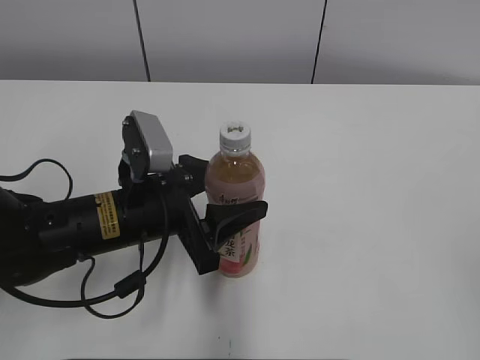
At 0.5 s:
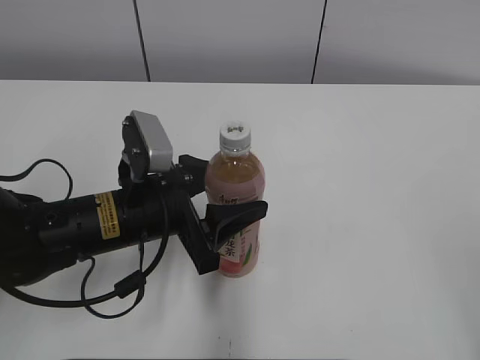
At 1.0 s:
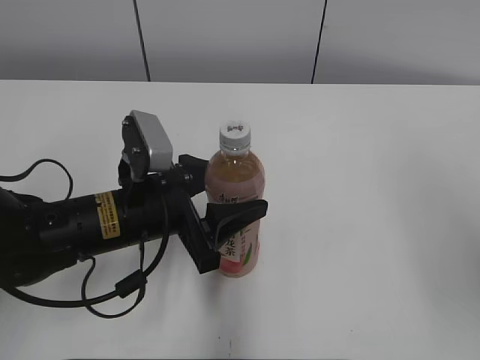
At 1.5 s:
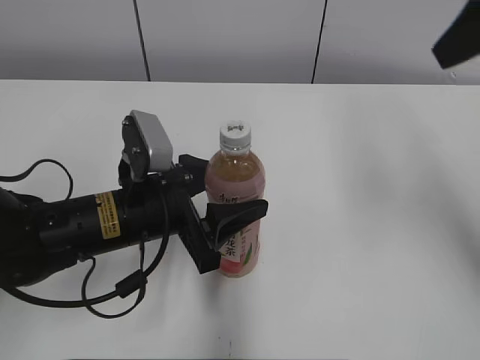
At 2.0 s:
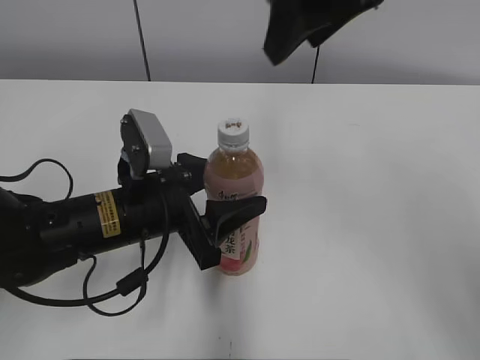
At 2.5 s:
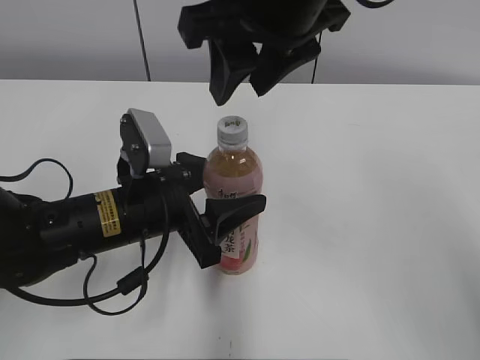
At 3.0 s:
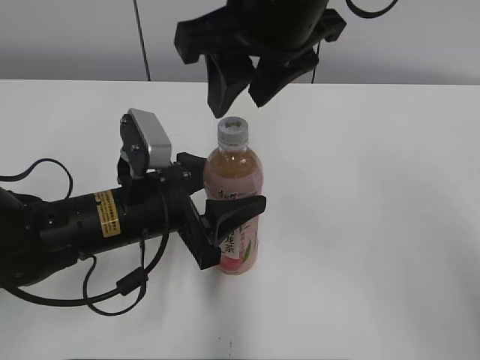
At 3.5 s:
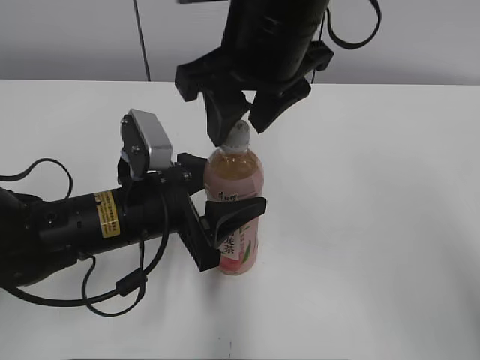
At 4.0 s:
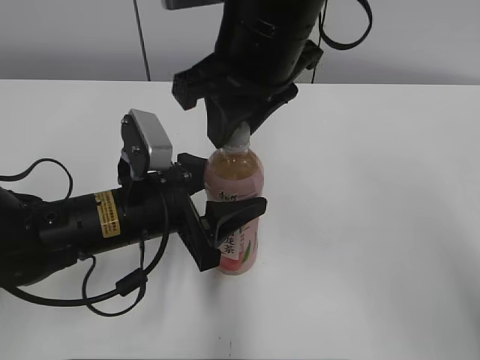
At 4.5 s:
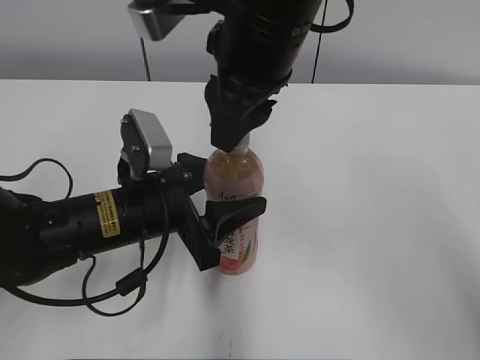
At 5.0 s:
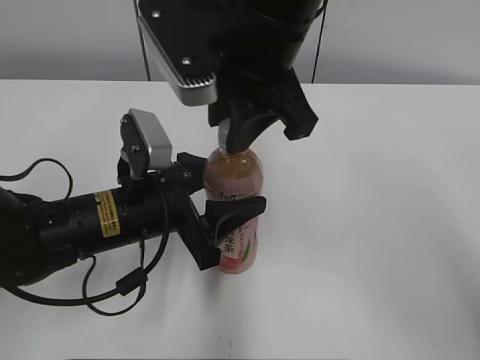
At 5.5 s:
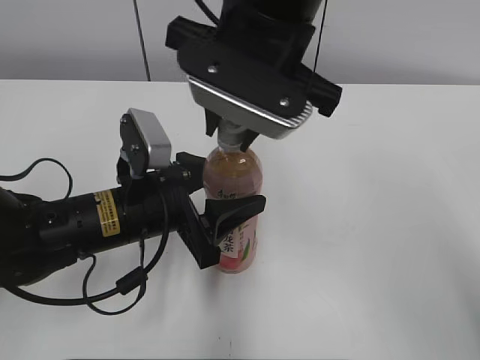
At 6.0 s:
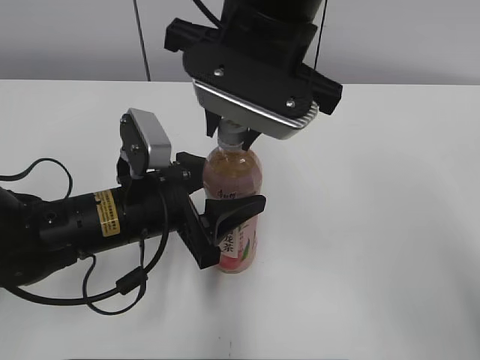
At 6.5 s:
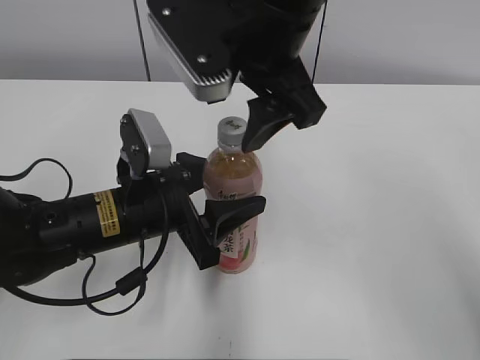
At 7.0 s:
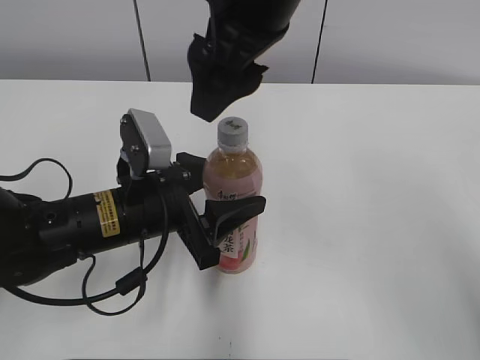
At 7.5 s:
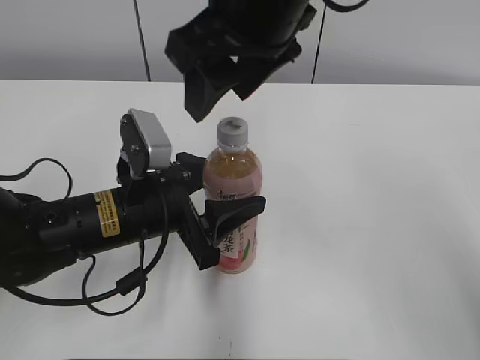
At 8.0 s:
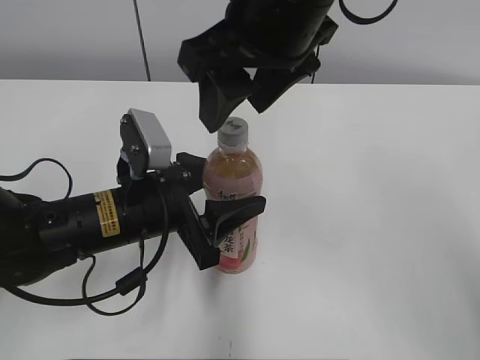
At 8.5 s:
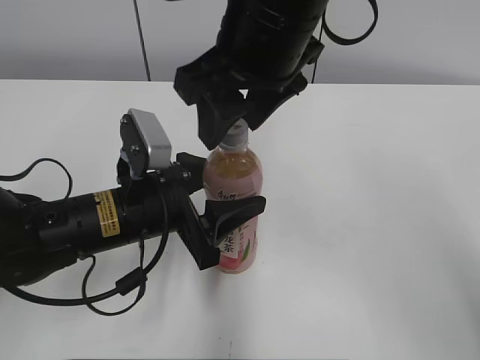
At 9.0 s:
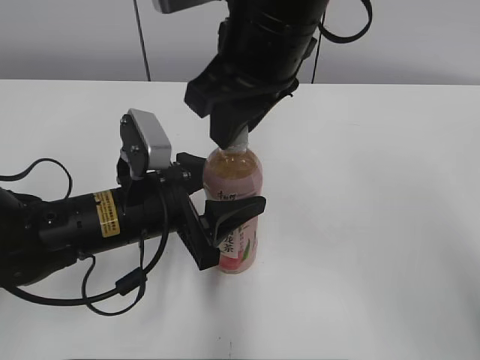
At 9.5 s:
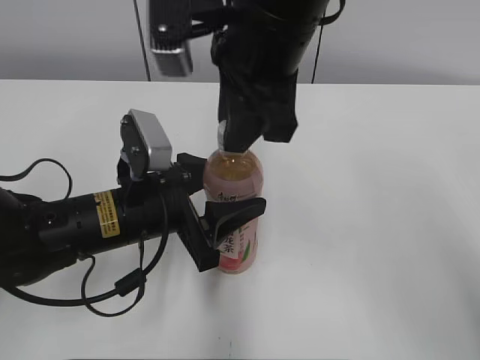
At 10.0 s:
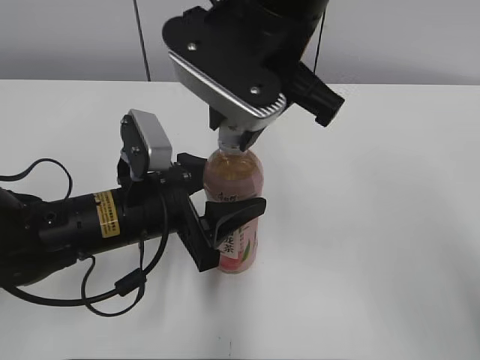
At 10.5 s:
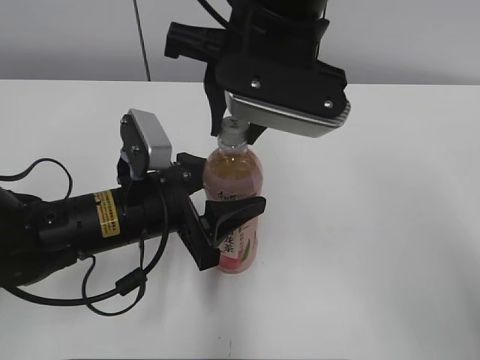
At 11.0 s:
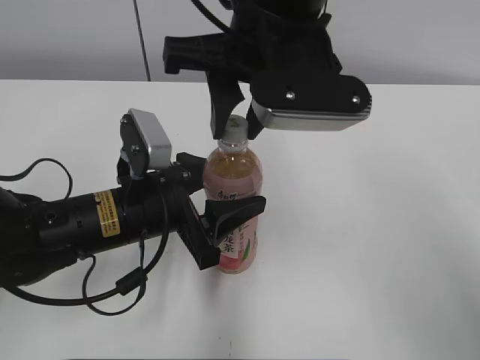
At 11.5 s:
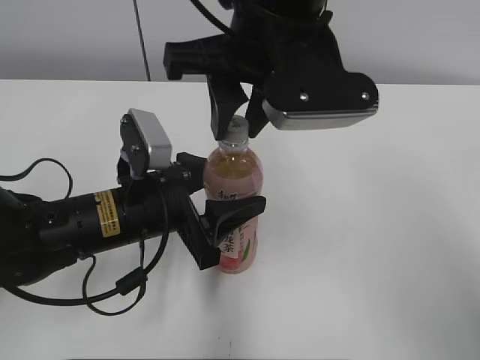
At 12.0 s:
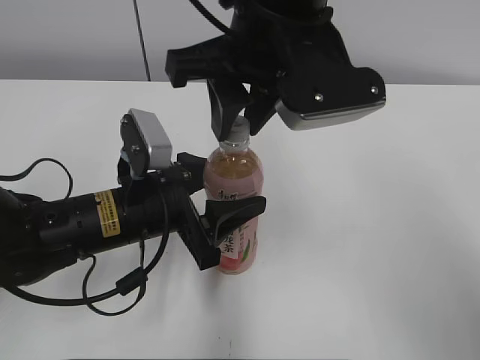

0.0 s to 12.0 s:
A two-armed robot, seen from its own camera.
0.0 to 2.0 s: The right gripper shifts roughly 35 cm forward and to the left.
2.0 to 4.0 s: The right gripper moves to the left and downward, roughly 10 cm, and closes.
6.0 to 8.0 s: The right gripper opens up.
8.0 to 10.0 s: The right gripper closes its fingers.

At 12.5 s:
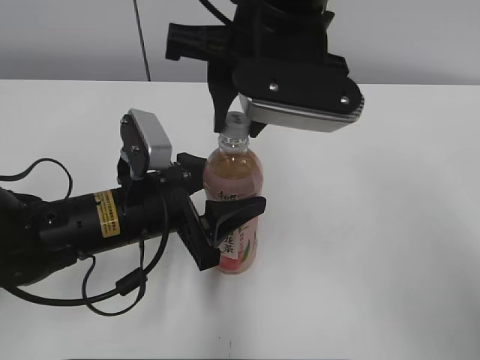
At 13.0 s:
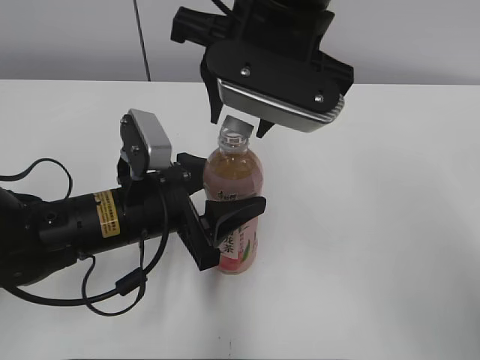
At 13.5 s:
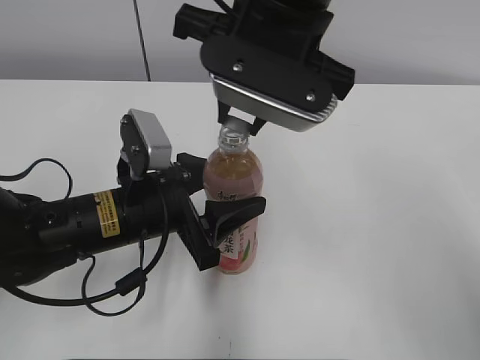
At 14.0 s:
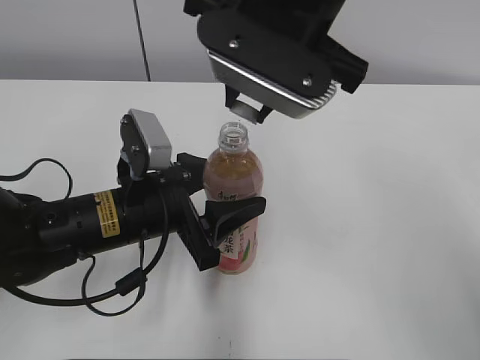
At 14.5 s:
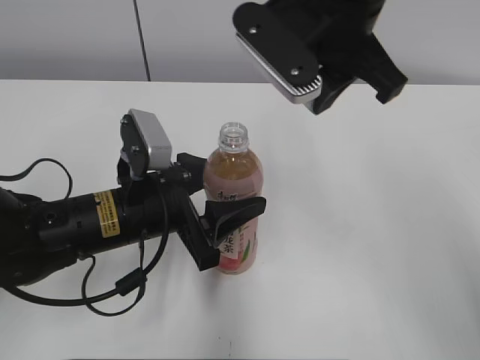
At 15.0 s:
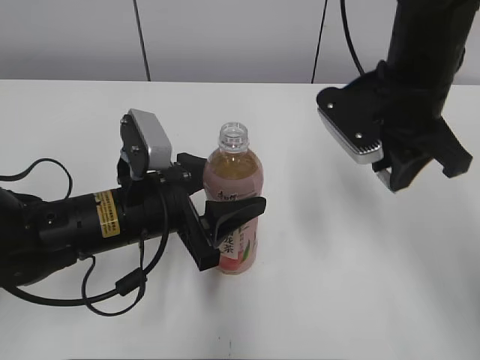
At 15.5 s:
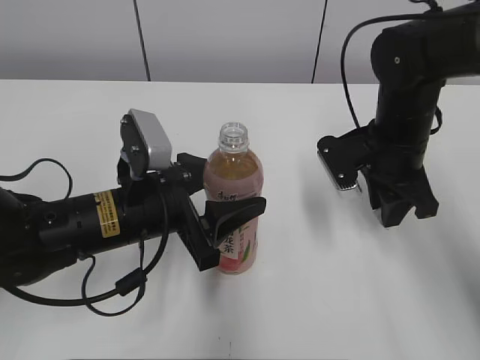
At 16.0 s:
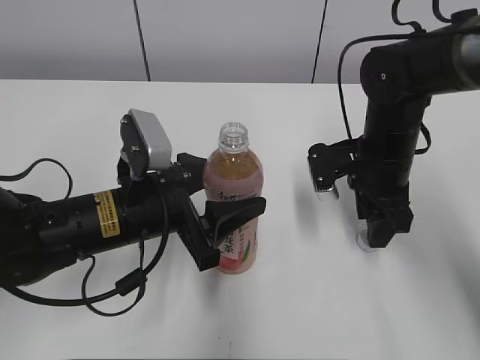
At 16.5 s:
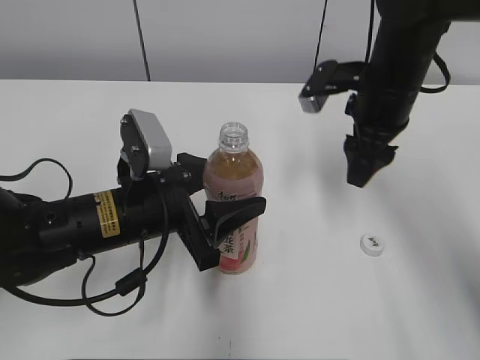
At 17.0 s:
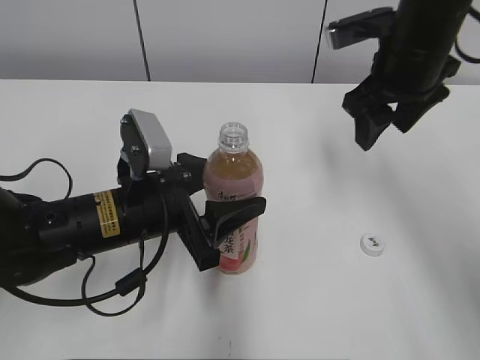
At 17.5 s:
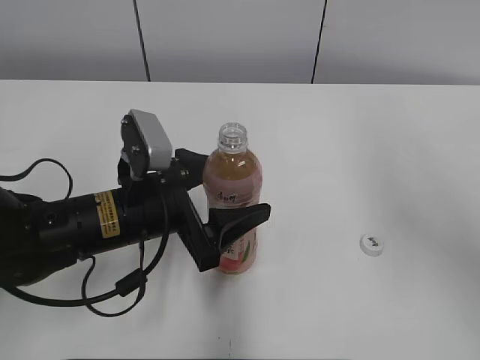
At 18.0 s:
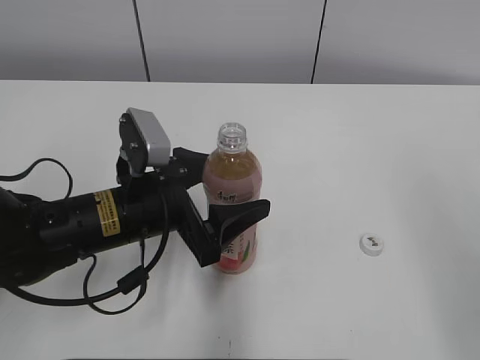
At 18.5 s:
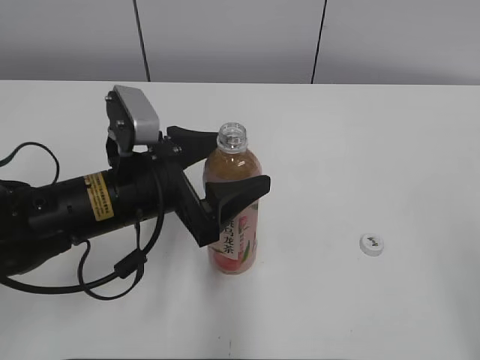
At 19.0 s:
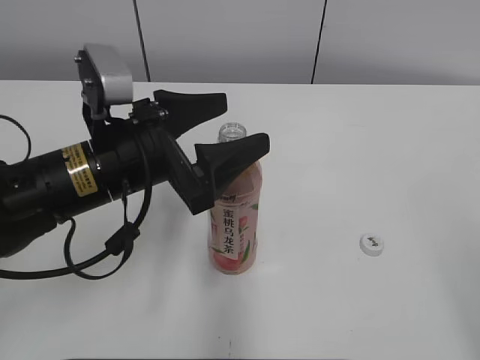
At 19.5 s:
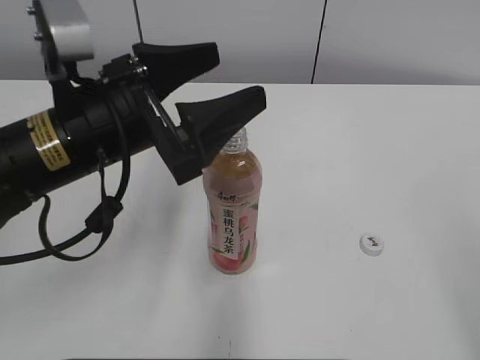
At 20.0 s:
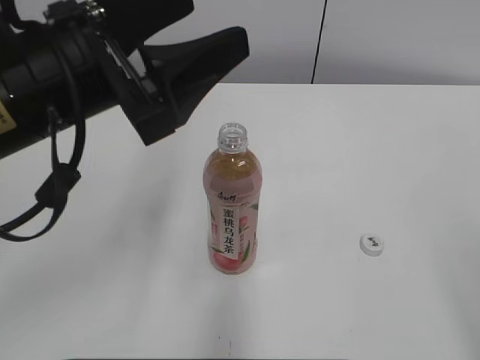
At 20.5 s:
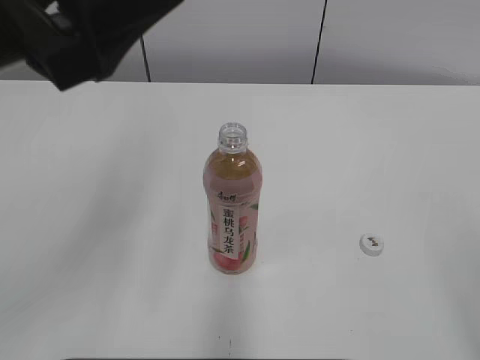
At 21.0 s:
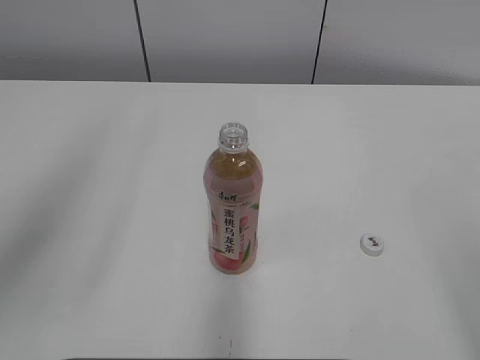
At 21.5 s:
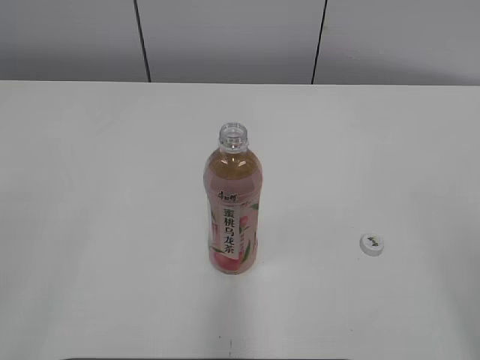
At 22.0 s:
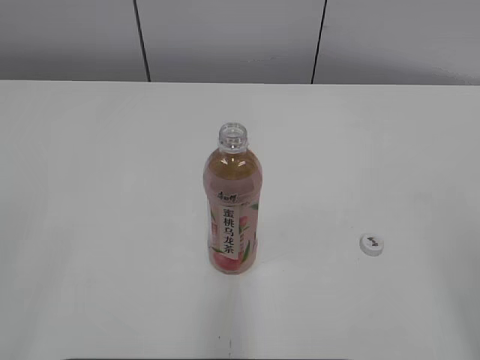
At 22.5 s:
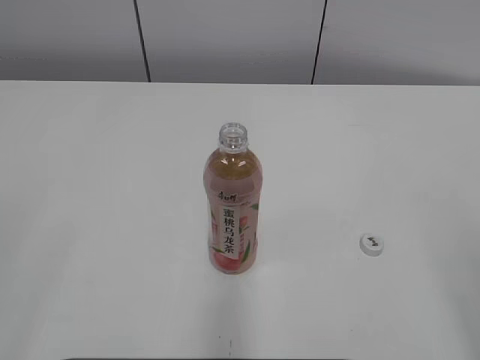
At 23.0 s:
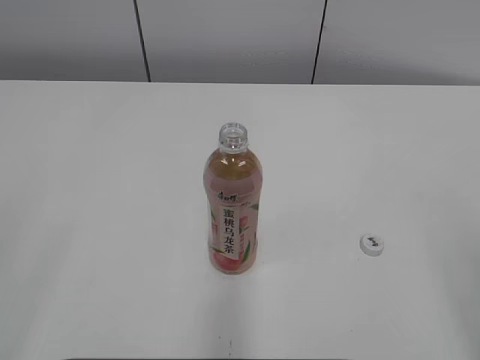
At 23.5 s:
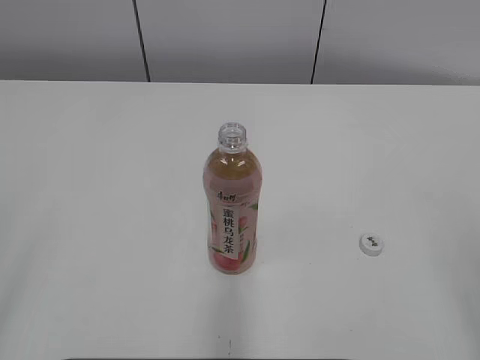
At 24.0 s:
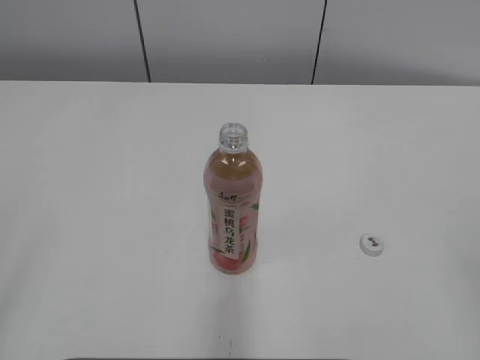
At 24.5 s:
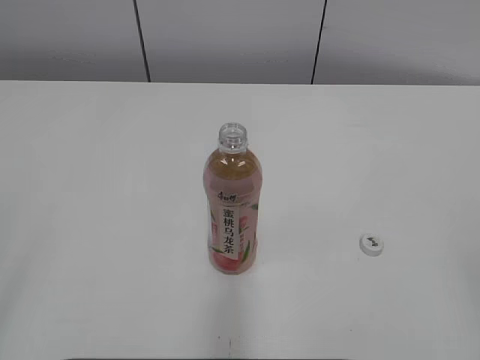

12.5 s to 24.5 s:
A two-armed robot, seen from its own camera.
Step, 14.0 to 16.0 s: Place the bottle cap on the right.
12.5 to 14.5 s: The right gripper opens, then closes once more.
14.5 to 16.5 s: The right gripper goes roughly 15 cm downward, to the right and forward, and opens its fingers.
16.5 to 18.5 s: The left gripper opens up. The right gripper travels backward by some 35 cm.
18.5 to 20.5 s: The left gripper shifts approximately 20 cm upward.
20.5 to 22.5 s: The left gripper shifts about 25 cm backward and to the left.
